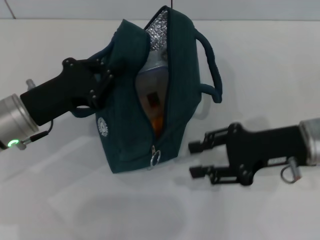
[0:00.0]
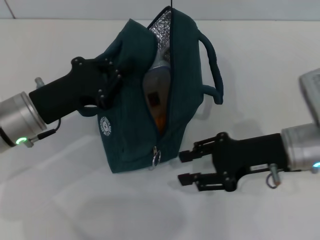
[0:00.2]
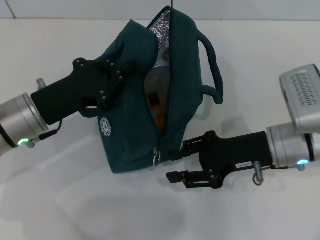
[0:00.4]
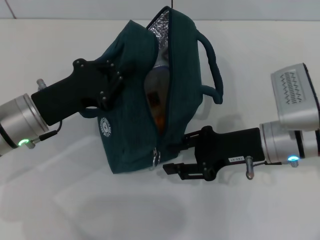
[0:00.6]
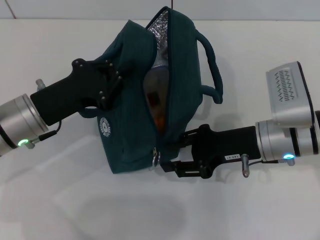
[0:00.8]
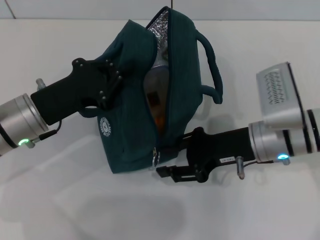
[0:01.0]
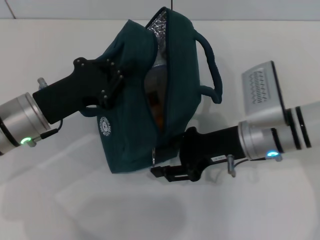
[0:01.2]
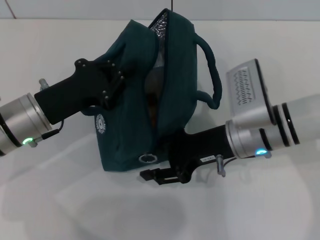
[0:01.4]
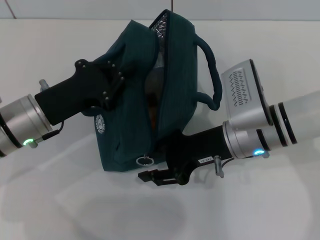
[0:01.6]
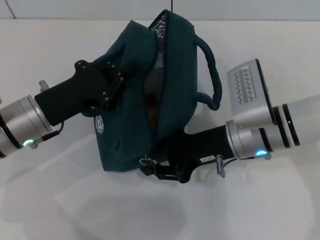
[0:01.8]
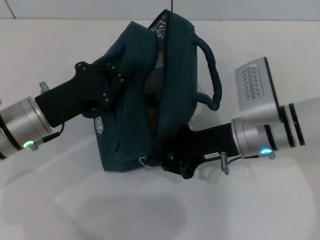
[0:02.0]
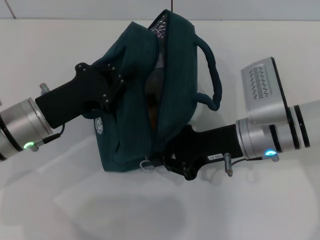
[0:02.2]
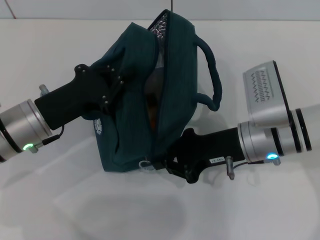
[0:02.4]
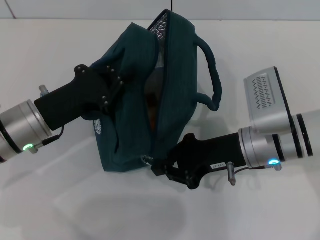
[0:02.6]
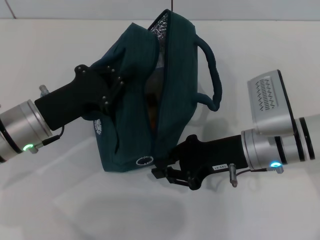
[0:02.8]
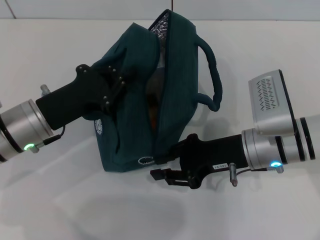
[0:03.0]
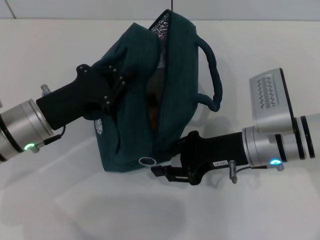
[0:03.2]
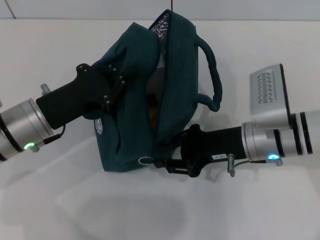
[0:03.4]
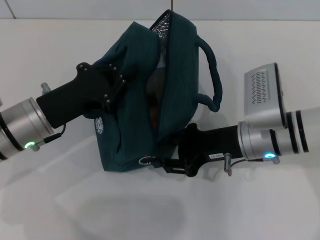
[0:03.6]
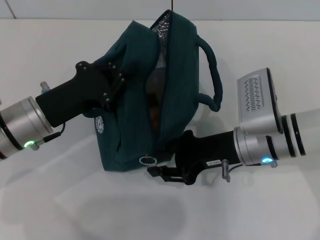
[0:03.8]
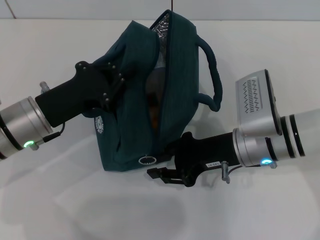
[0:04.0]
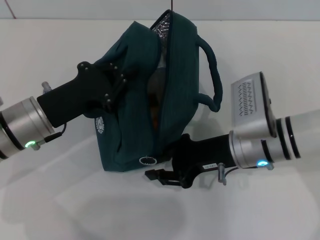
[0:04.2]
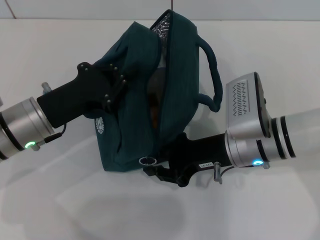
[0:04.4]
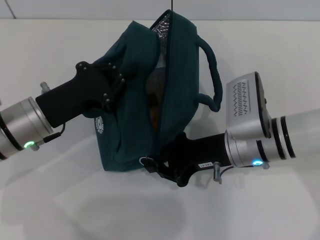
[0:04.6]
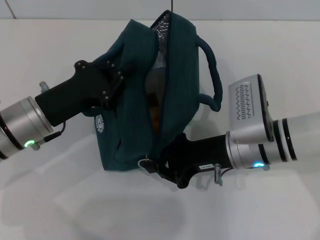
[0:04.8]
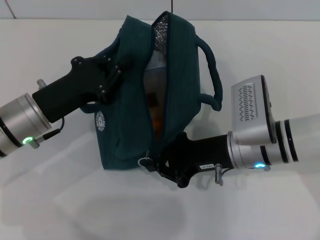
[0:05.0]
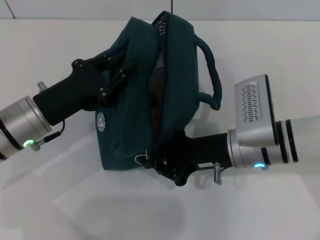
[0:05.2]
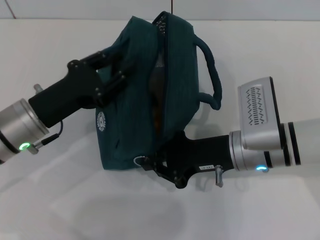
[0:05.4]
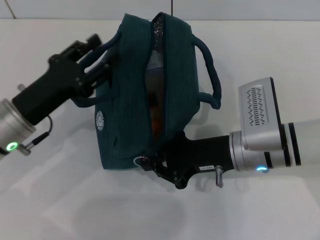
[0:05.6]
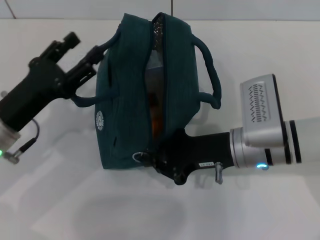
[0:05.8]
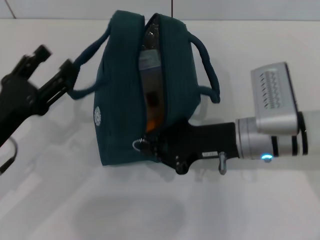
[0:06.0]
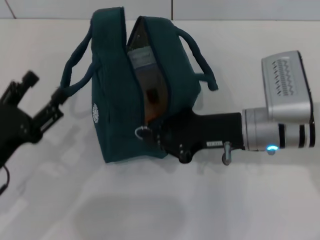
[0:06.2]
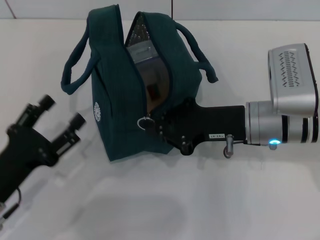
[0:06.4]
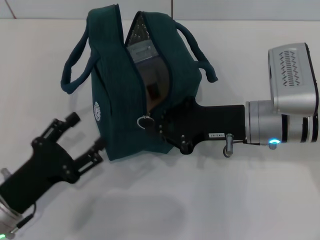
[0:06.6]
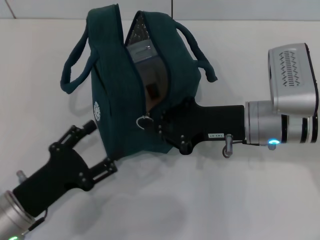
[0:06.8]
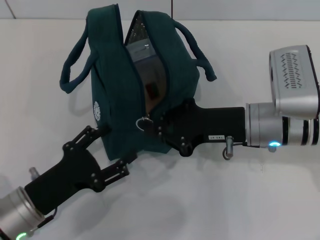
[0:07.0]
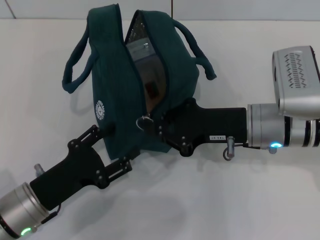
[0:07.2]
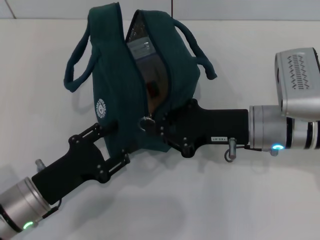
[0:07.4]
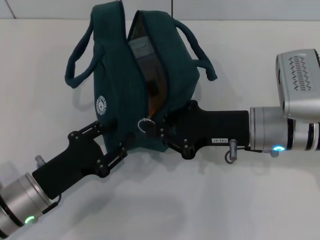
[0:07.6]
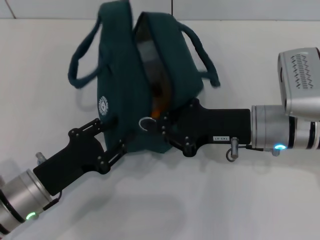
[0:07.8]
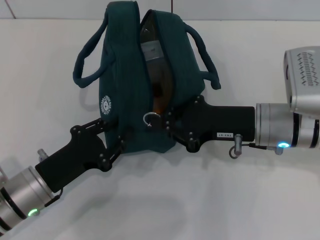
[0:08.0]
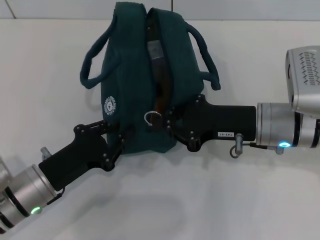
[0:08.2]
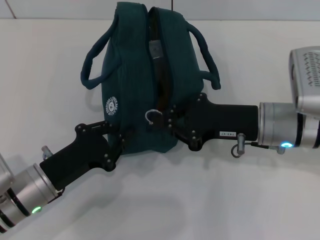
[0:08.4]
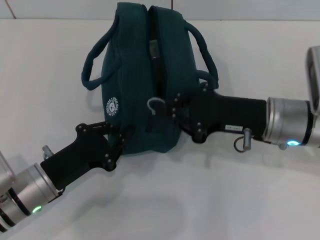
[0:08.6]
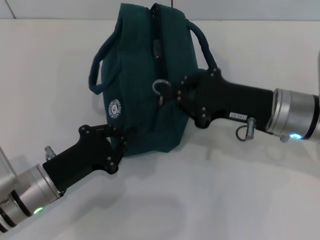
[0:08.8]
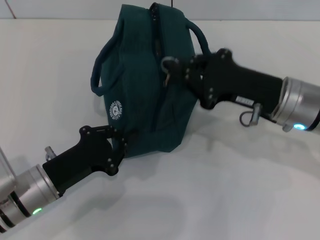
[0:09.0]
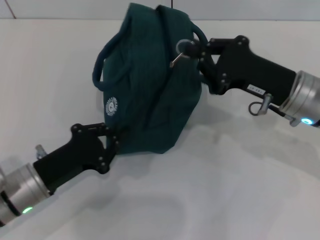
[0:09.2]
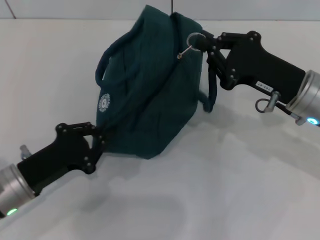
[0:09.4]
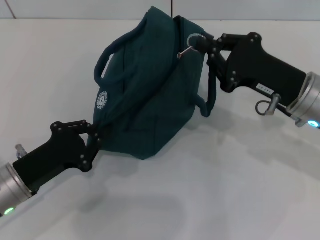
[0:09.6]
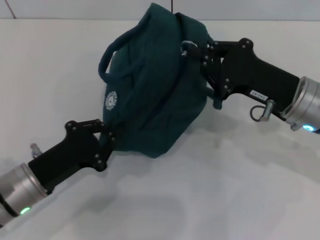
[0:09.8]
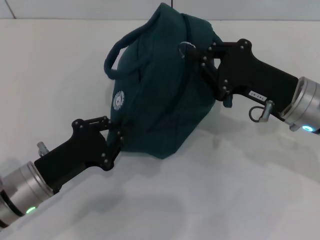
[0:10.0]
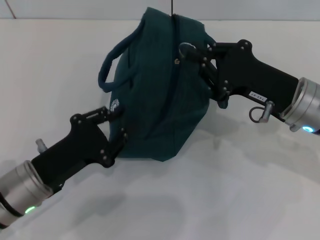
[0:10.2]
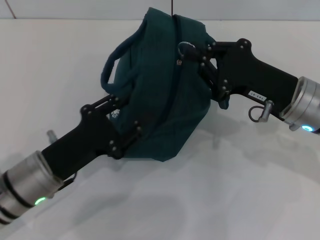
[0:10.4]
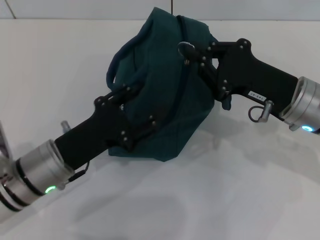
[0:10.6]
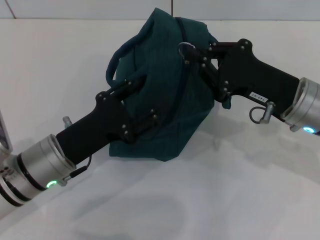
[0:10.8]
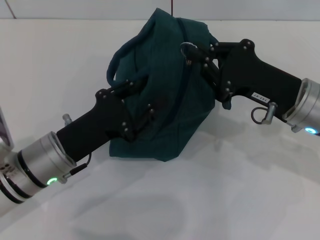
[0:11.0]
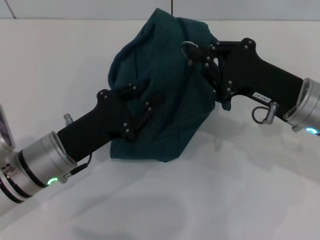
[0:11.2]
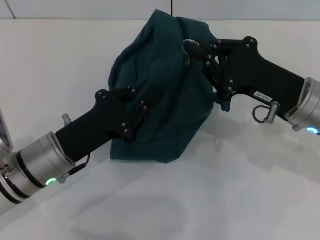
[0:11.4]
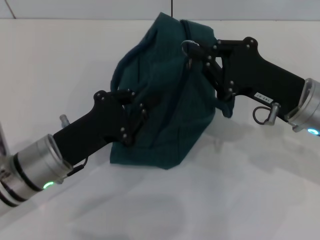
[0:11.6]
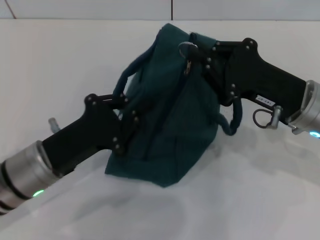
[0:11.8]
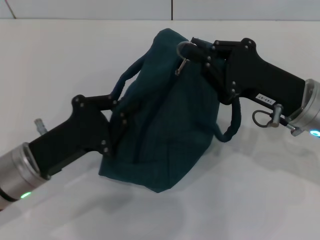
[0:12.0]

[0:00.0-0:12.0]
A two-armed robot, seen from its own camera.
Step, 0:00.0 to 0:06.0: Hold the lunch bag with your left hand.
0:00.0 to 0:01.6: The right gripper shifts about 10 cm to the left.
0:01.6 to 0:03.0: The right gripper closes.
0:03.0 to 0:04.4: There are only small adjustments of the grippers.
0:04.4 to 0:06.0: The left gripper goes about 10 cm backward and to the left, and opens its fingers. Meanwhile the right gripper closes its fingers.
0:06.0 to 0:07.6: The left gripper goes approximately 5 cm downward.
0:07.6 to 0:09.0: The left gripper closes up.
0:09.0 to 0:10.4: The grippers stay close to where they were, moving slightly.
0:10.4 to 0:12.0: The left gripper opens, then closes again.

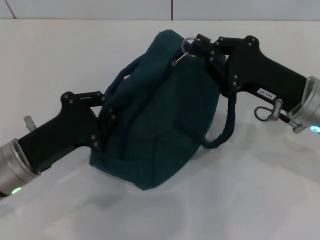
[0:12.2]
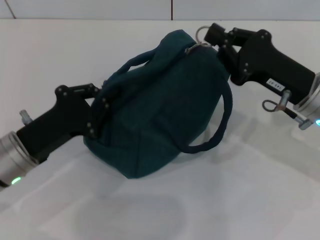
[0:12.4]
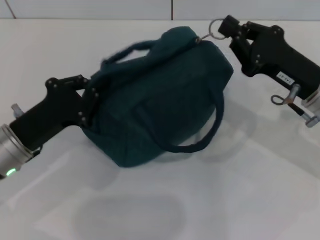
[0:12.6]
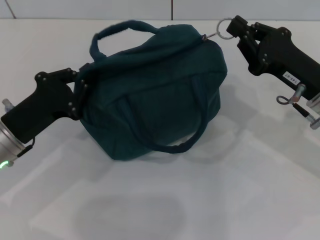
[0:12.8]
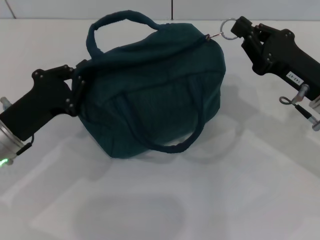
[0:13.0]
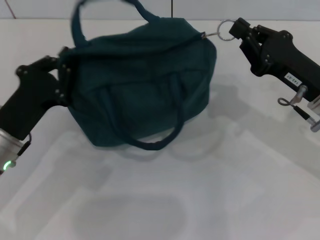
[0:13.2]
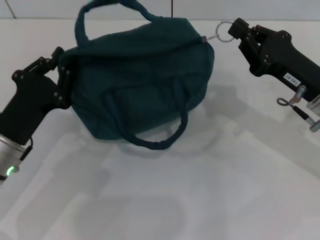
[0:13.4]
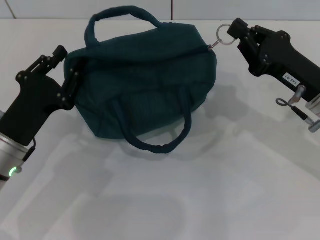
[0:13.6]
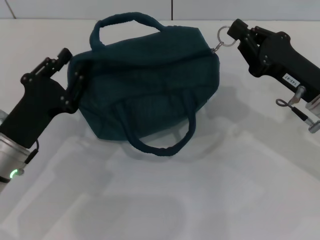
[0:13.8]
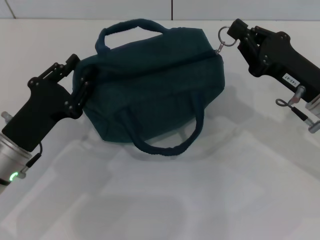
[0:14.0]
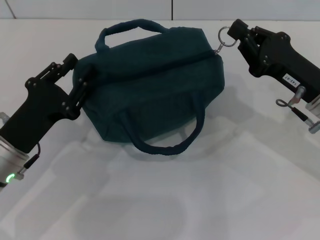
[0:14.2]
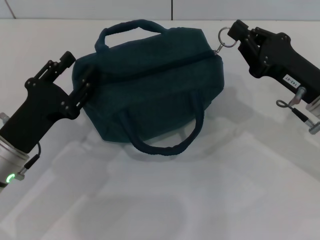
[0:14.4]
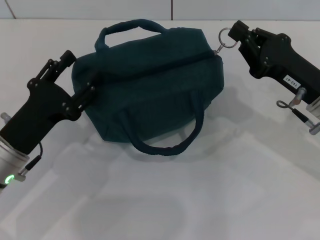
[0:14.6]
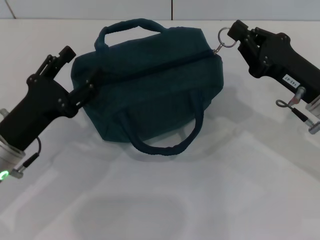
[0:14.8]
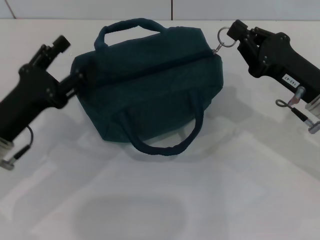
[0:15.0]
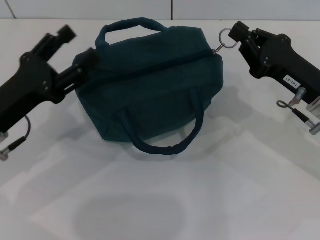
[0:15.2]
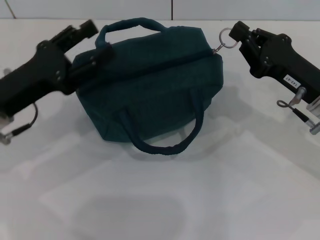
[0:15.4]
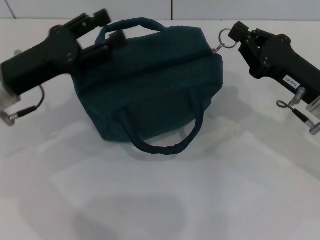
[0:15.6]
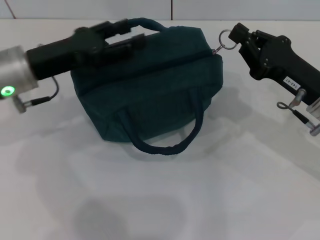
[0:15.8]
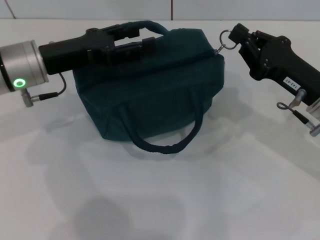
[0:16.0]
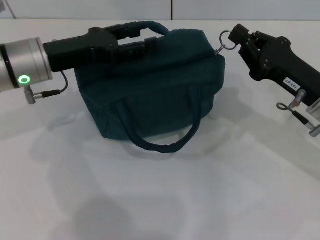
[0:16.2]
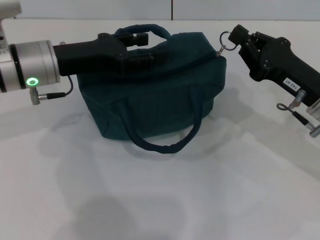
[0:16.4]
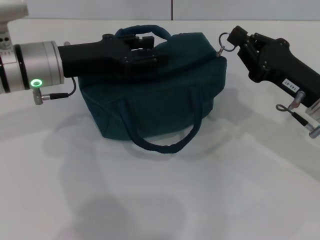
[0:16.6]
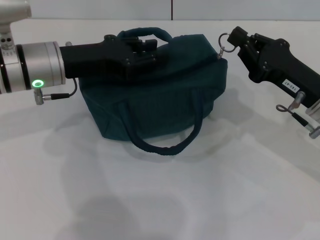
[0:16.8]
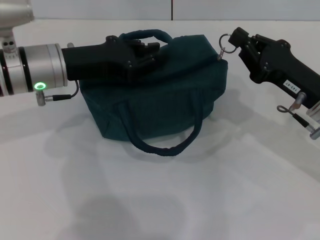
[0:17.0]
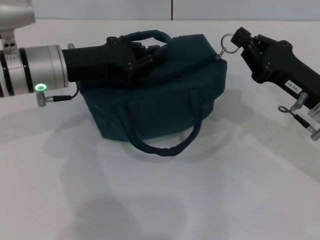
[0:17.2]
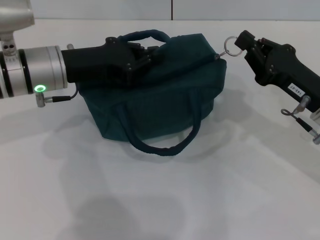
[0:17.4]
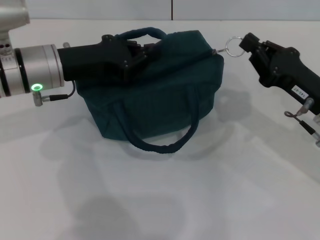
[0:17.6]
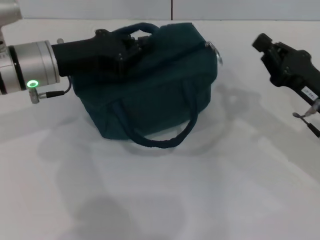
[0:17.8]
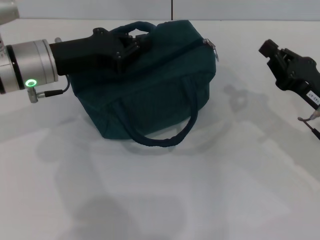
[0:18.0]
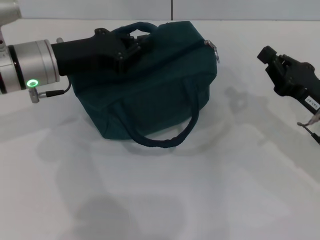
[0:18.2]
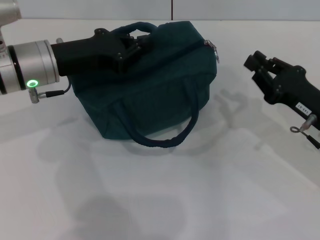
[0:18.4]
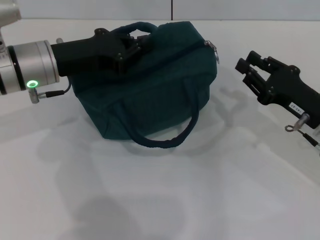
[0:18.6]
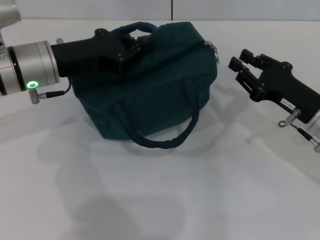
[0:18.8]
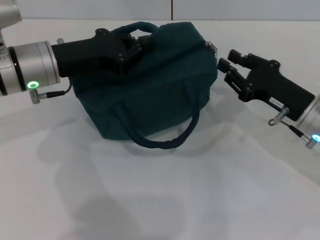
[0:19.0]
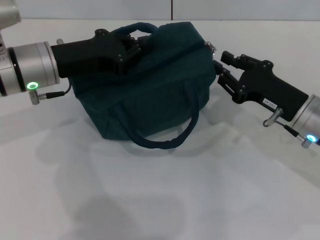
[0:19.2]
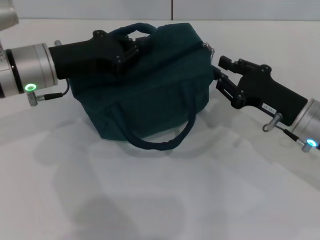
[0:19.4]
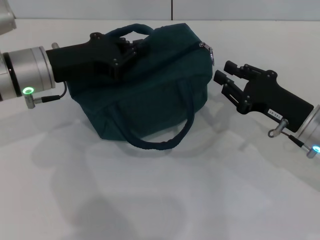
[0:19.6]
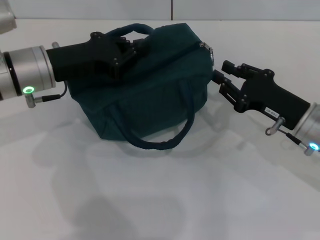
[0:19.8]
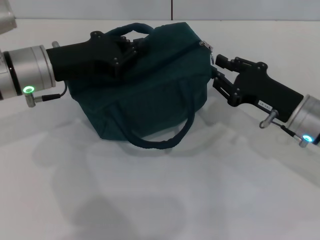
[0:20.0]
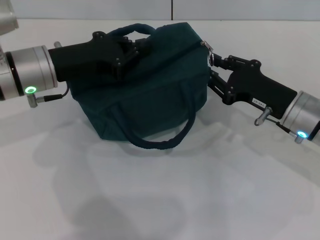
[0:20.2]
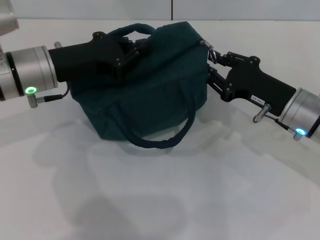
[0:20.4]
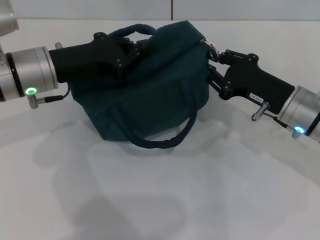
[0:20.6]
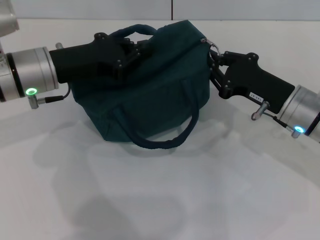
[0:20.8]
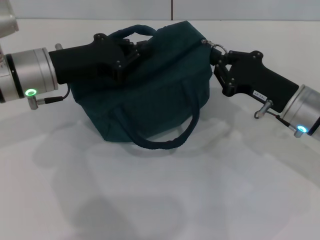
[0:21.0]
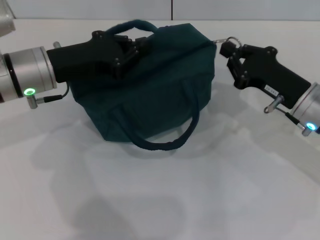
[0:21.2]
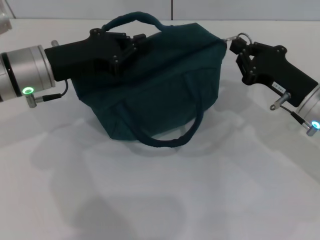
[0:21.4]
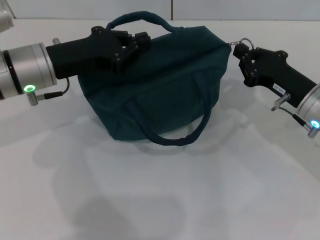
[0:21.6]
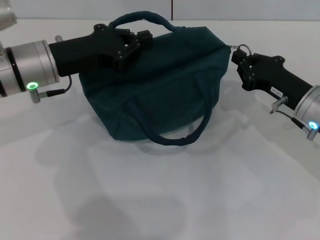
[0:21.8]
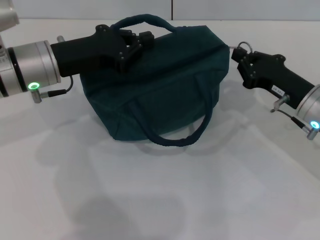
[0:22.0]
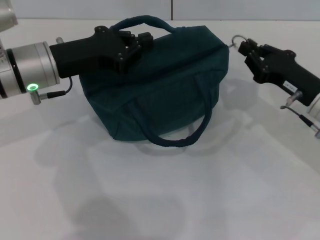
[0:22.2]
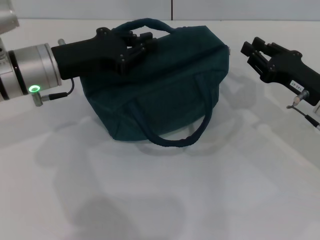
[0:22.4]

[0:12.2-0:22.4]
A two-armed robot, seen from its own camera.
Step, 0:12.2 to 0:22.2: Zip up the lunch bag with your right hand.
0:13.6 to 0:15.2: The left gripper ends up approximately 5 cm from where it was, and opens its fingers.
0:15.2 to 0:16.6: The left gripper heads forward and to the right, covering roughly 10 cm.
0:16.6 to 0:18.0: The left gripper closes.
0:18.0 to 0:19.4: The right gripper opens.
0:19.4 to 0:22.4: The grippers make only small movements.
